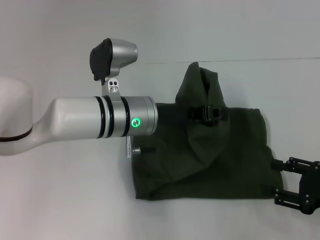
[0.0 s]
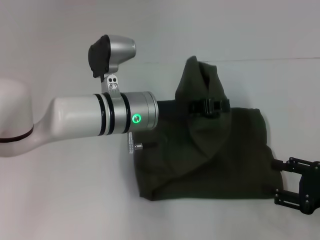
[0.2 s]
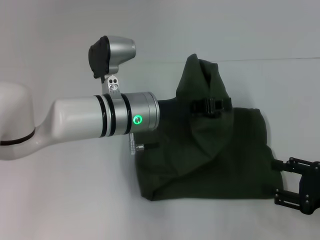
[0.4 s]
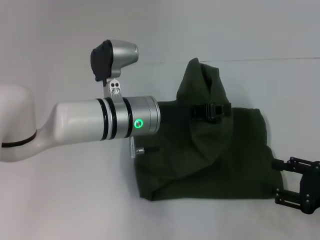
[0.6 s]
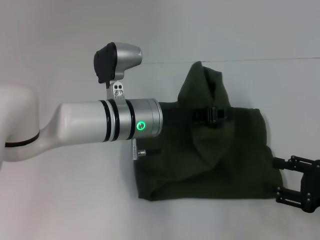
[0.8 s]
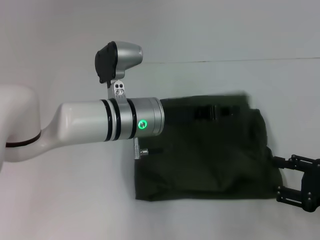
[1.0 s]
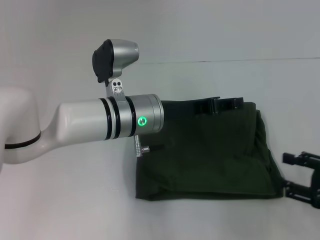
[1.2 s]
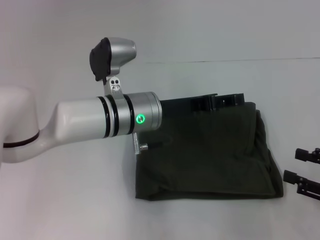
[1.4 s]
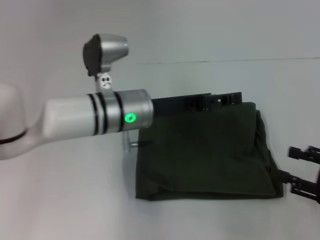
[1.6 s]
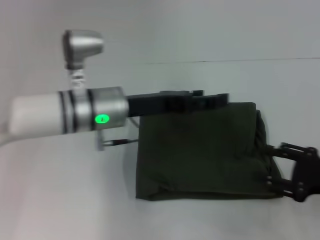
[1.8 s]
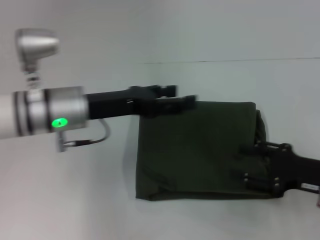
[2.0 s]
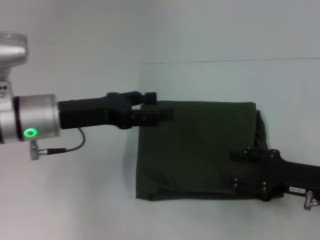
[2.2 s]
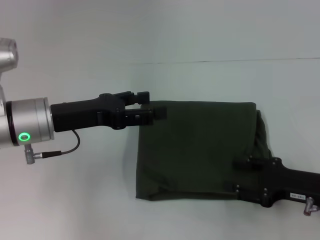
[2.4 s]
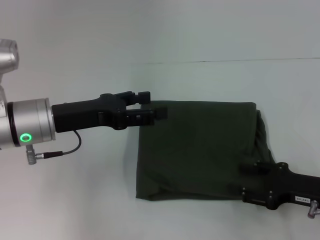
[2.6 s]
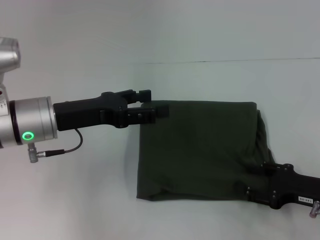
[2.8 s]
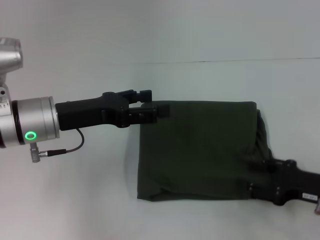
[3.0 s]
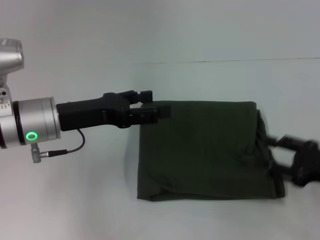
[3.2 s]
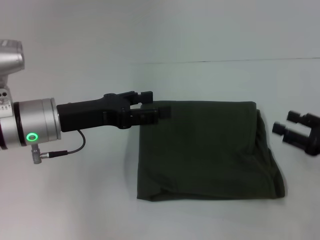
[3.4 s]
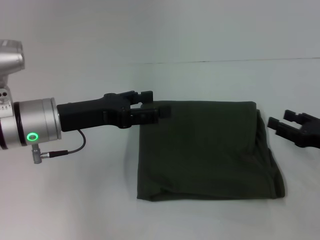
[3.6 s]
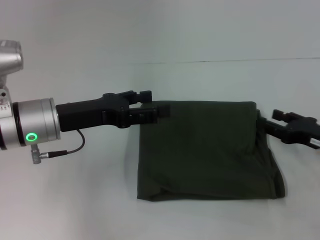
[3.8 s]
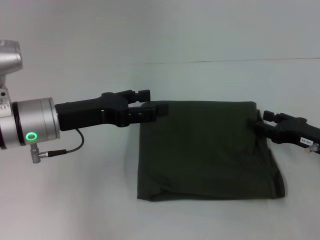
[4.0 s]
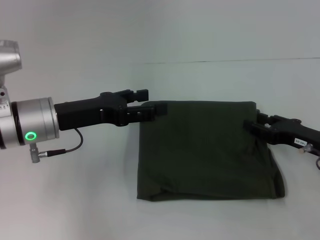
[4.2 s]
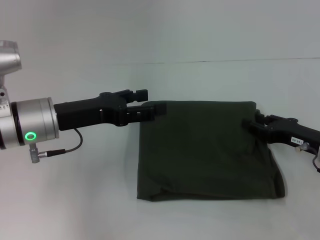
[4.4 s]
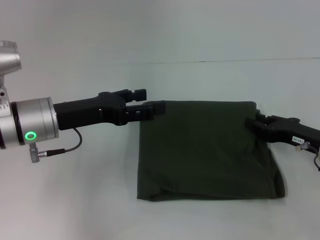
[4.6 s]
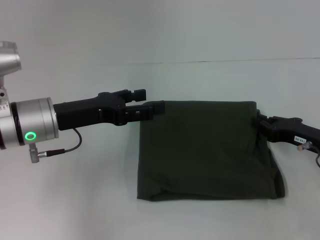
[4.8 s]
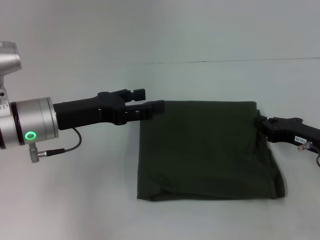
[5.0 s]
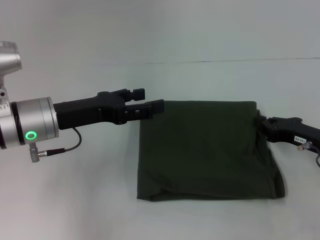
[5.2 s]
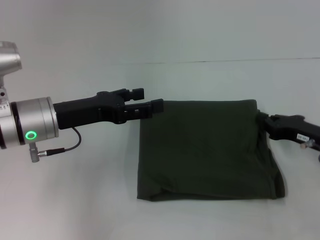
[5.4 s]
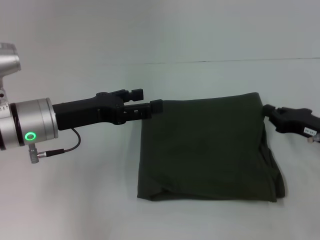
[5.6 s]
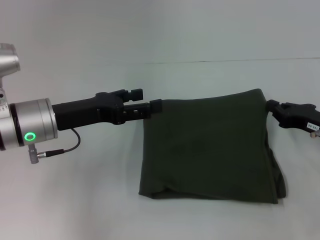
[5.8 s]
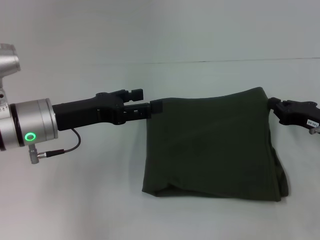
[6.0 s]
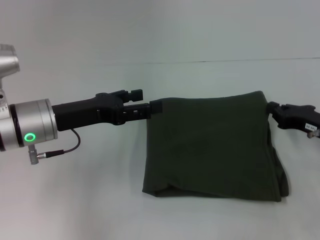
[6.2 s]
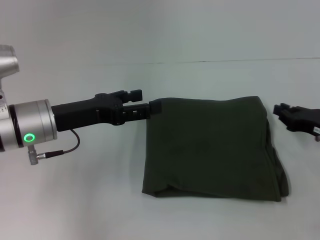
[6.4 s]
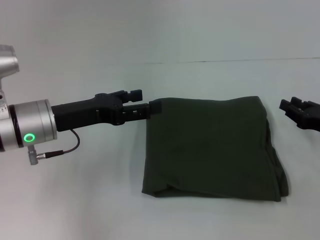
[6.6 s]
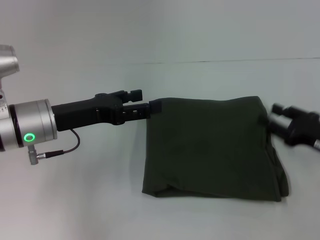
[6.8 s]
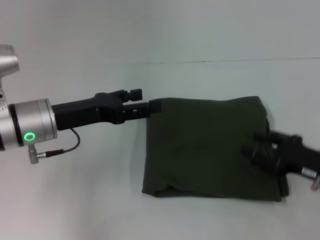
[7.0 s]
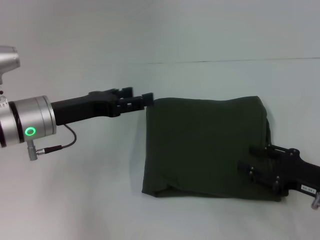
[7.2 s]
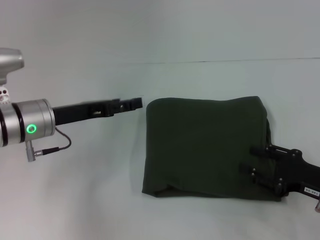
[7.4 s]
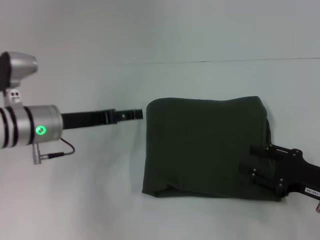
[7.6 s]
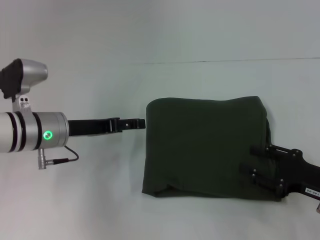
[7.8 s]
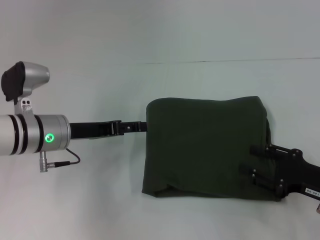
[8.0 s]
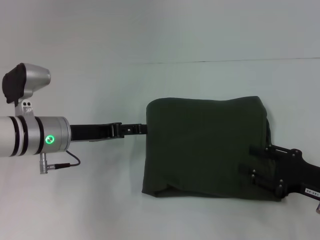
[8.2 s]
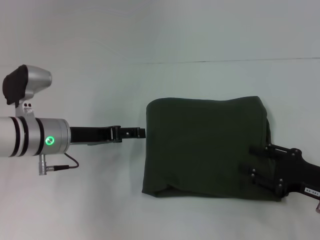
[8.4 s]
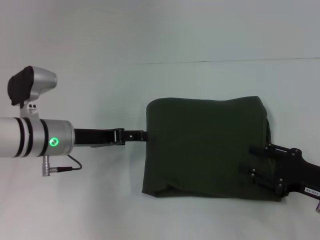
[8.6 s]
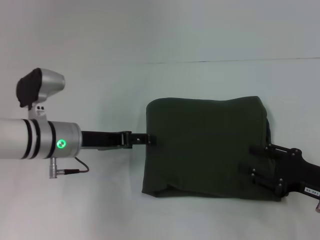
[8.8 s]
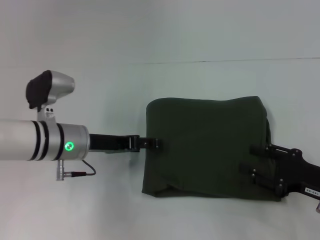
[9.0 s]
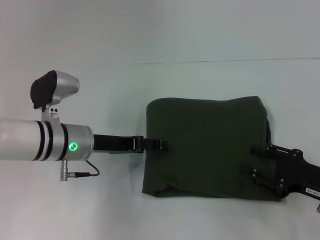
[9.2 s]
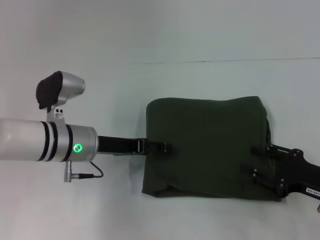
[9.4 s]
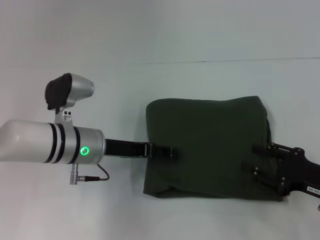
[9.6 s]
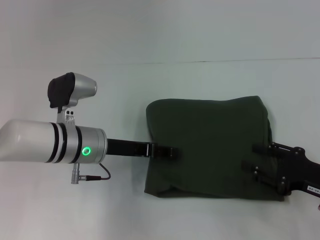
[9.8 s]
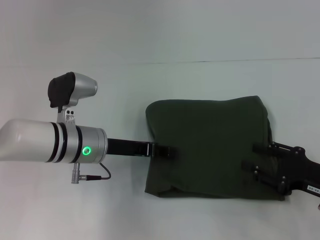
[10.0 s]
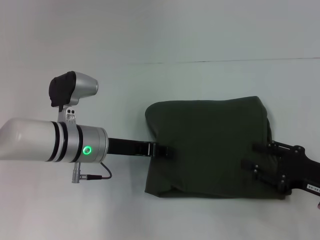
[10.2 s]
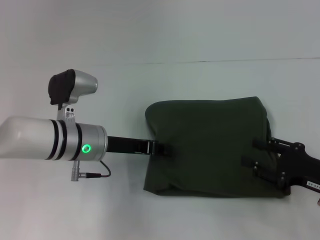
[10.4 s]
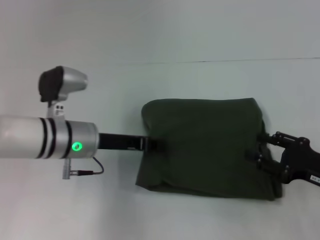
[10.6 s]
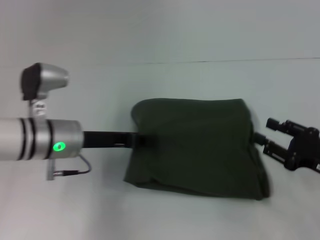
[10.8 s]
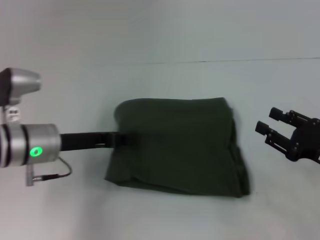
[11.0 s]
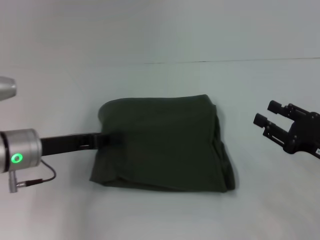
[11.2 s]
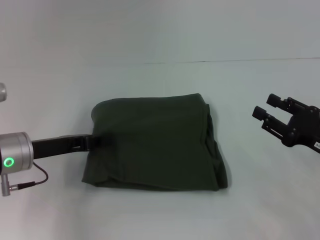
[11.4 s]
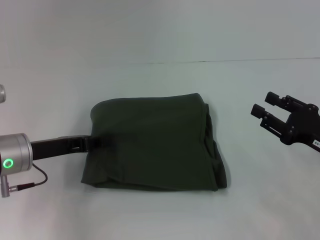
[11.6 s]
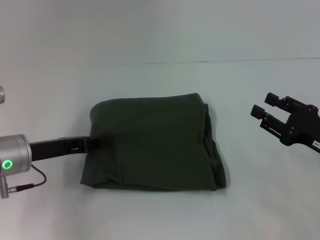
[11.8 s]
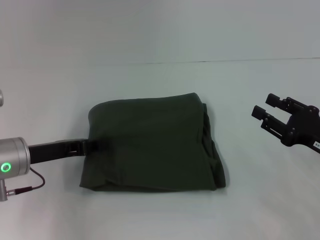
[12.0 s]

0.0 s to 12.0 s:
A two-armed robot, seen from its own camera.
0.0 to 1.6 s: The left gripper opens its fingers.
1.6 to 3.0 s: The left gripper heads to the left, covering approximately 10 cm; the right gripper moves about 5 cm.
3.0 to 4.4 s: The right gripper heads forward, covering about 5 cm.
4.4 to 6.0 s: The right gripper closes.
6.0 to 7.6 s: The right gripper moves backward, roughly 10 cm, and opens.
7.6 to 9.0 s: There are only small adjustments of the grippers.
9.0 to 10.4 s: The left gripper closes.
10.4 to 12.0 s: The left gripper shifts about 10 cm to the left.

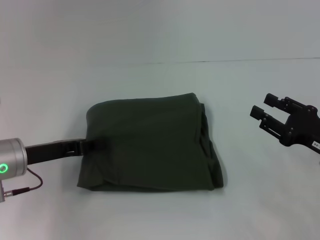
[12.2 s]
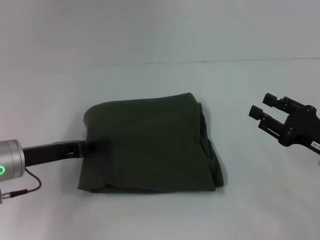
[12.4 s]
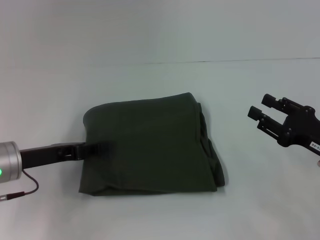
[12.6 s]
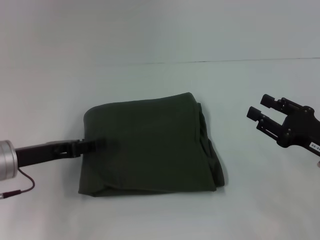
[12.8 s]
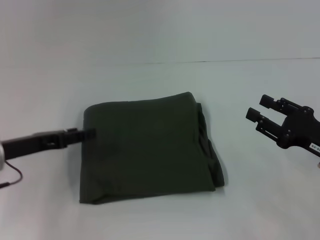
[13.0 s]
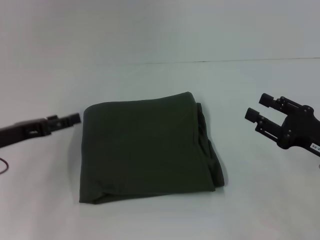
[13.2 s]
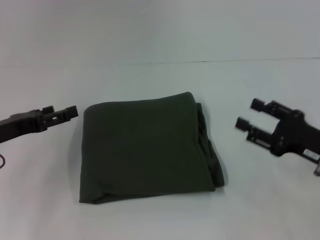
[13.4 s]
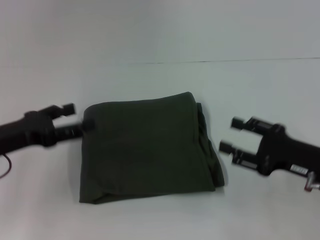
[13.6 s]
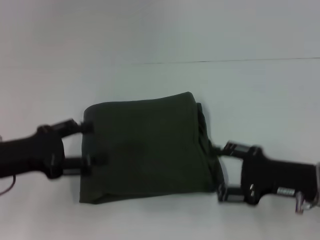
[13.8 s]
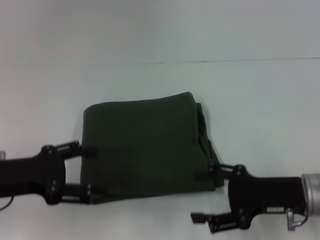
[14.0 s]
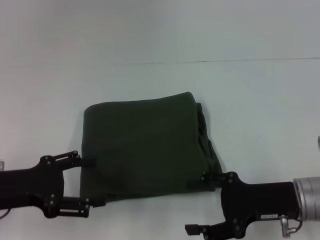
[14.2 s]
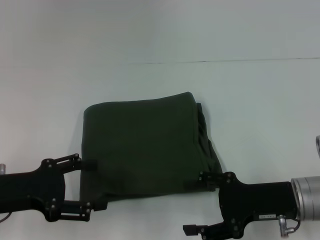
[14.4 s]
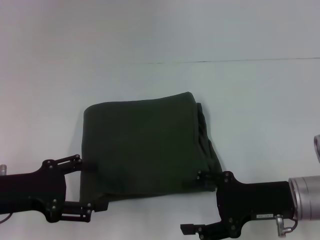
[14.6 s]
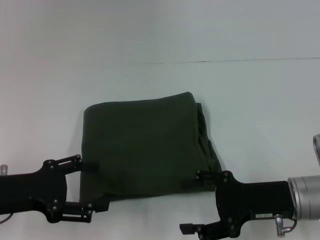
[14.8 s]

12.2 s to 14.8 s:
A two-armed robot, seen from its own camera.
12.2 to 13.4 s: The left gripper goes roughly 5 cm to the left, and opens.
13.4 to 14.8 s: The right gripper travels to the left by roughly 5 cm, and opens its fingers, while the left gripper travels backward by roughly 5 cm.

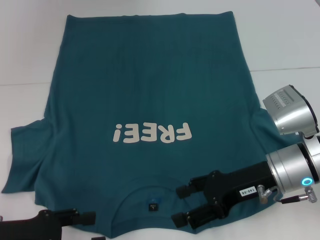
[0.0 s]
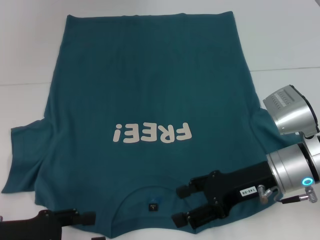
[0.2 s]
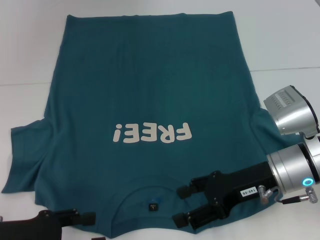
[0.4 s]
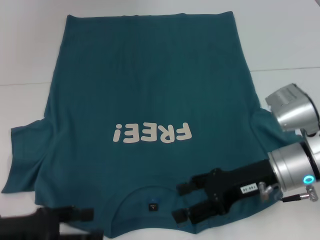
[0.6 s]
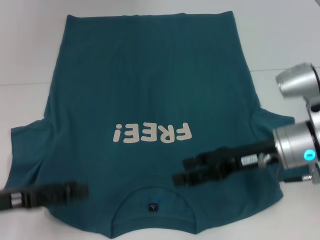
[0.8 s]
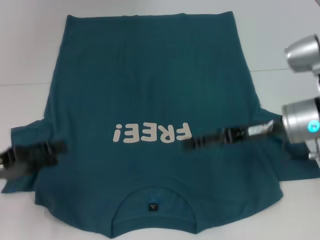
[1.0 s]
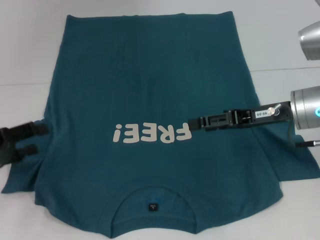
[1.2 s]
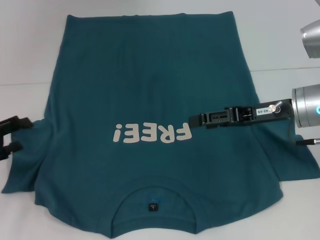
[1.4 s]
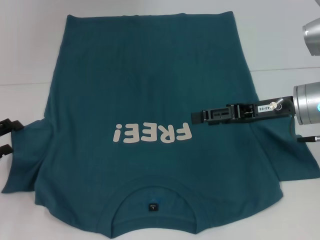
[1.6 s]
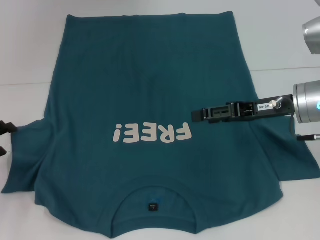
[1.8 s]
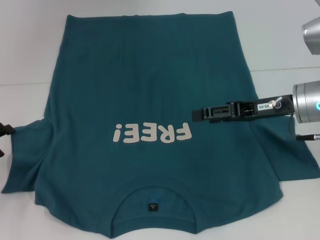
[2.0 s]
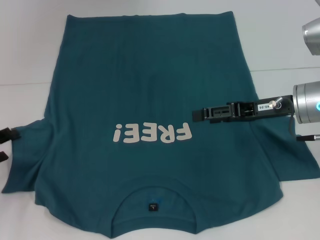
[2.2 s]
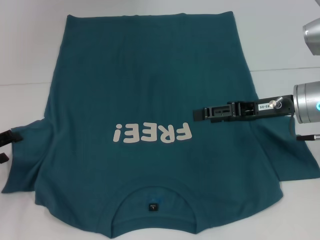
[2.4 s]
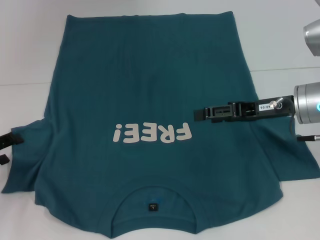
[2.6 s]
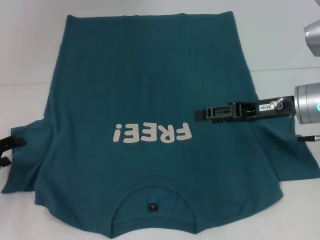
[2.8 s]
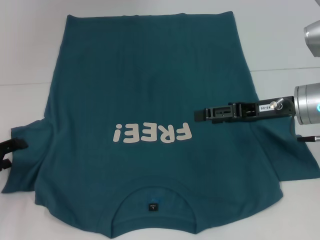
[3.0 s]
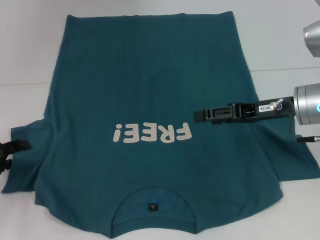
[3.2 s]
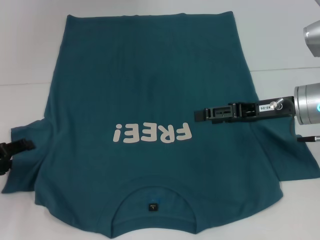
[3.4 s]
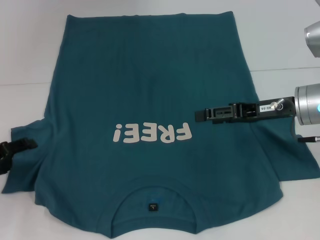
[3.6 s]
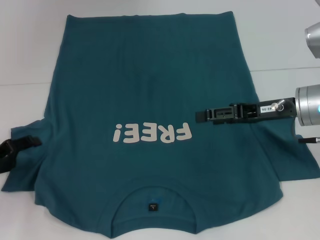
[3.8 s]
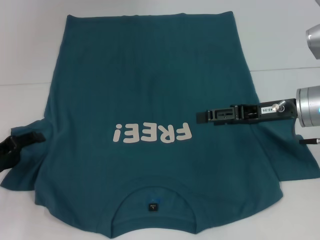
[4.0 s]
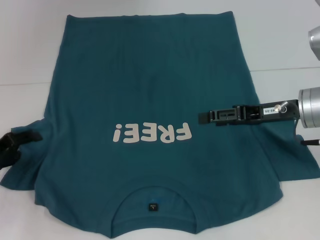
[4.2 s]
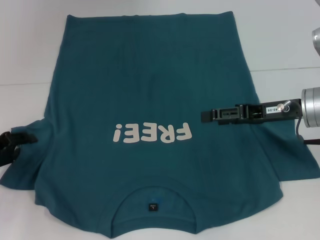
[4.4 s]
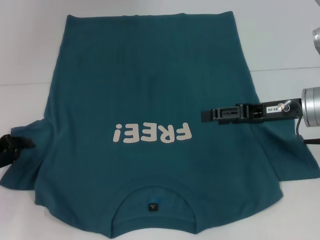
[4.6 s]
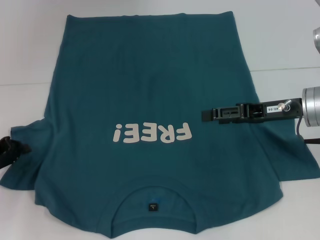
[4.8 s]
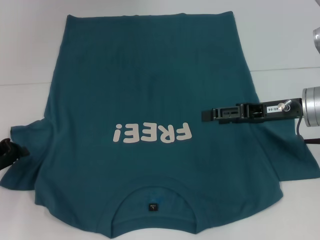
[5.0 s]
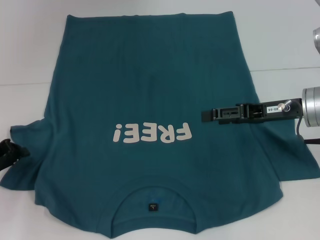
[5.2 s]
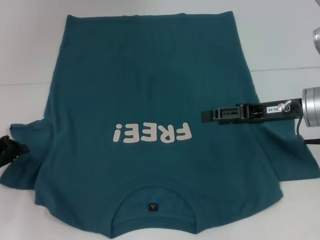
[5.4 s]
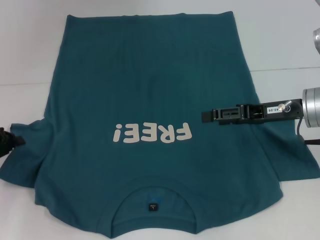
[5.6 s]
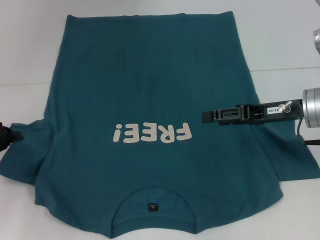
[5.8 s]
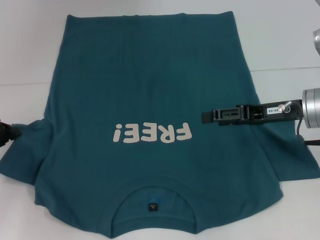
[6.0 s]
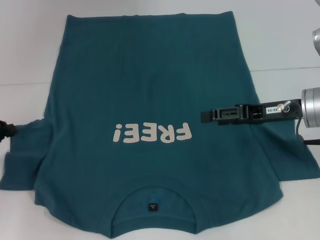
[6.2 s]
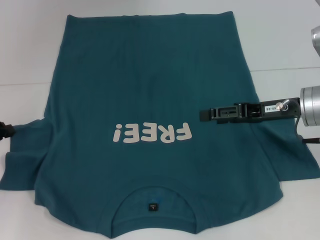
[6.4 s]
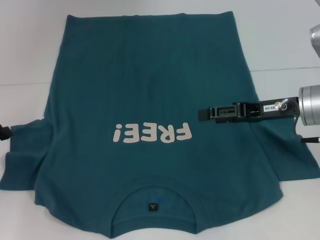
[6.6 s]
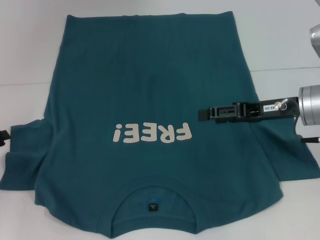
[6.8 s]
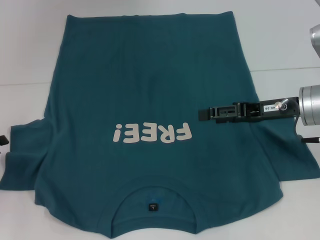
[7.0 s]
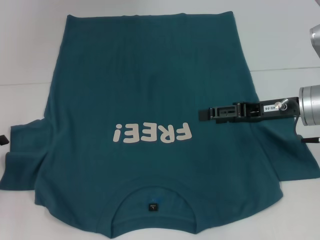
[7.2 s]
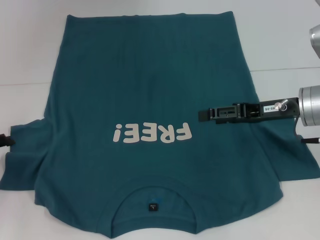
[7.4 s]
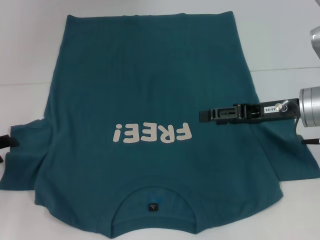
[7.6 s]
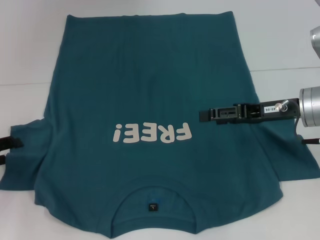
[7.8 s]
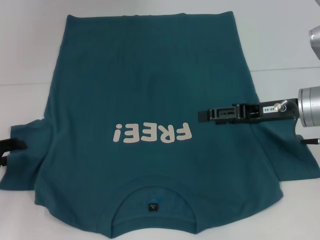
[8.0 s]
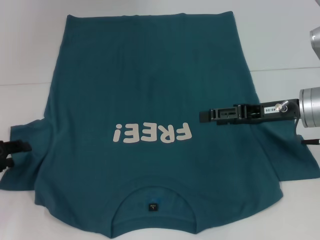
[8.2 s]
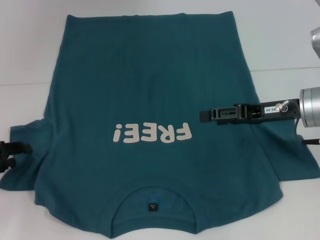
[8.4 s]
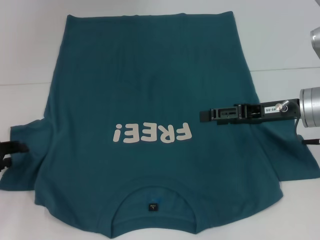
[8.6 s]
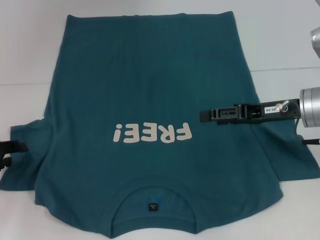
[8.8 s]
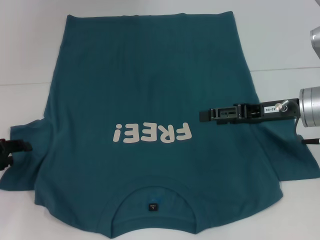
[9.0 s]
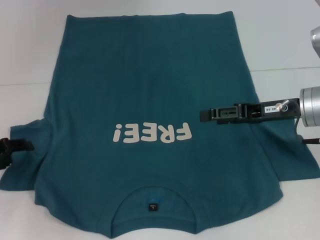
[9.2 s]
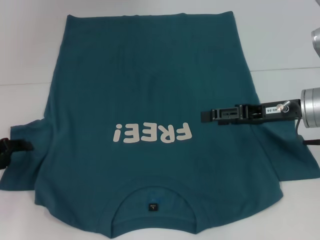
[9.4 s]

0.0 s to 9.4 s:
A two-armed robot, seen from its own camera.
0.0 to 1.6 s: The left gripper shifts approximately 10 cm forward and to the left. Meanwhile the right gripper shifts about 5 cm forward.
1.6 to 3.2 s: The grippers move only a little.
3.2 to 4.8 s: The left gripper closes.
4.8 to 6.2 s: The left gripper closes its fingers.
6.2 to 7.8 s: The left gripper opens its fingers.
7.8 to 9.4 s: The grippers make only small movements.
